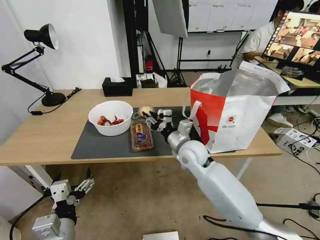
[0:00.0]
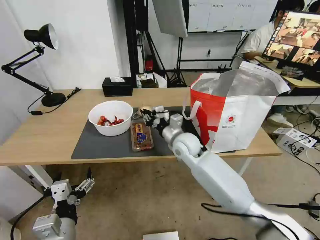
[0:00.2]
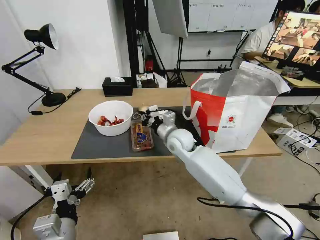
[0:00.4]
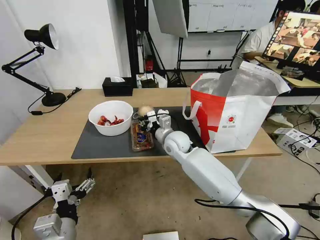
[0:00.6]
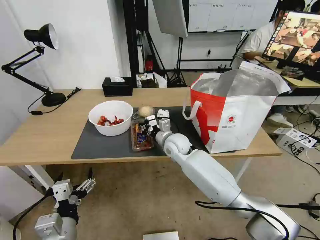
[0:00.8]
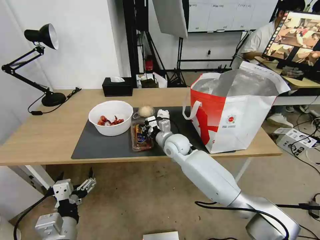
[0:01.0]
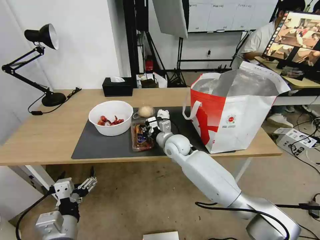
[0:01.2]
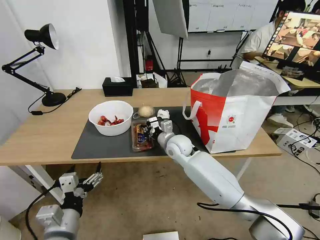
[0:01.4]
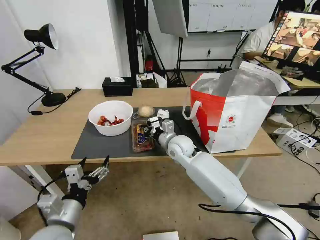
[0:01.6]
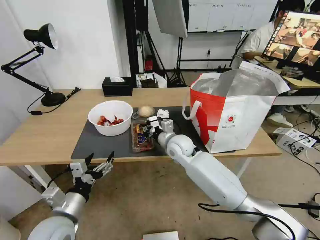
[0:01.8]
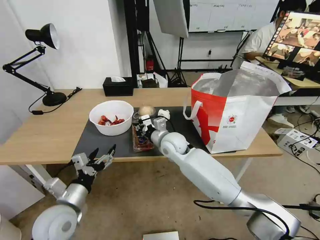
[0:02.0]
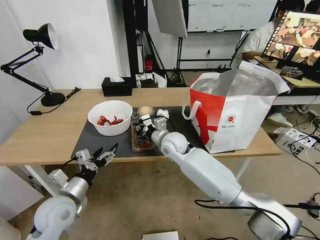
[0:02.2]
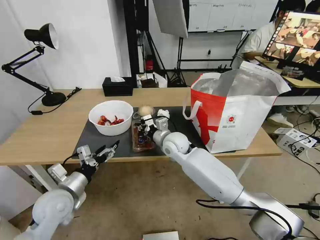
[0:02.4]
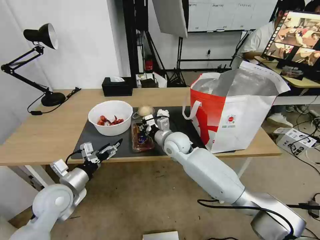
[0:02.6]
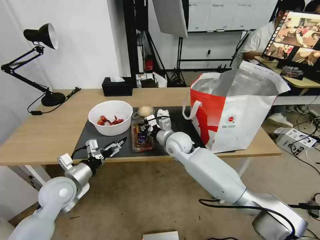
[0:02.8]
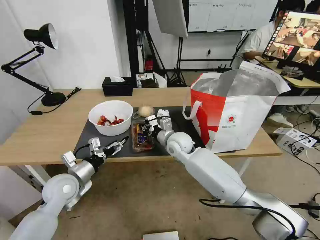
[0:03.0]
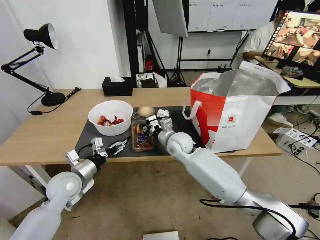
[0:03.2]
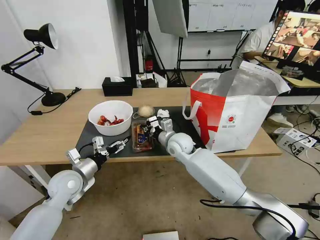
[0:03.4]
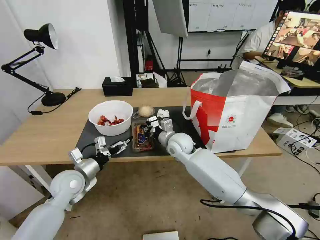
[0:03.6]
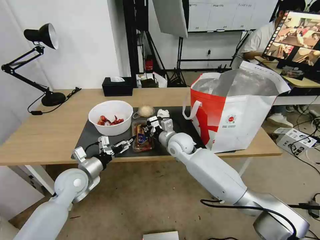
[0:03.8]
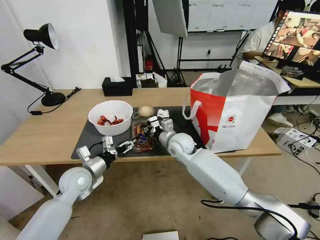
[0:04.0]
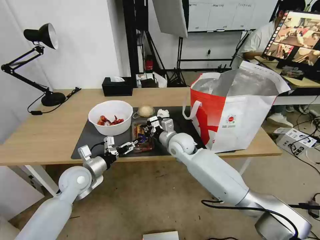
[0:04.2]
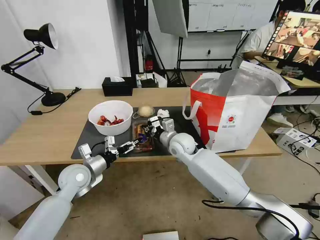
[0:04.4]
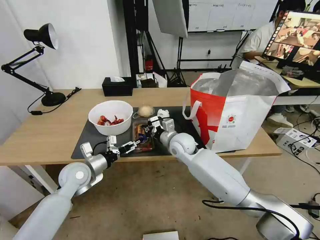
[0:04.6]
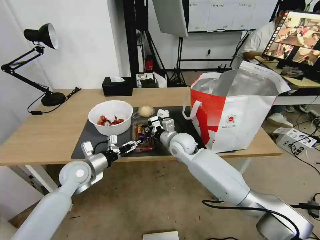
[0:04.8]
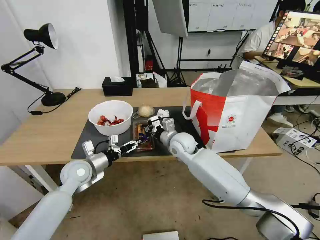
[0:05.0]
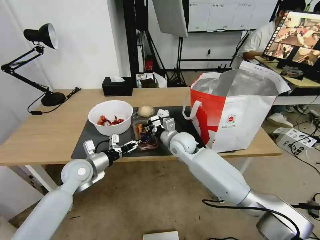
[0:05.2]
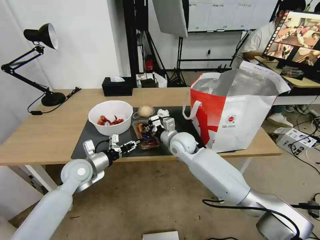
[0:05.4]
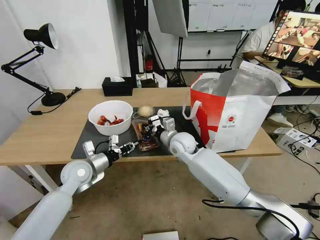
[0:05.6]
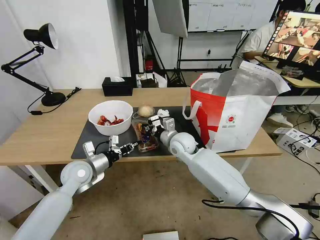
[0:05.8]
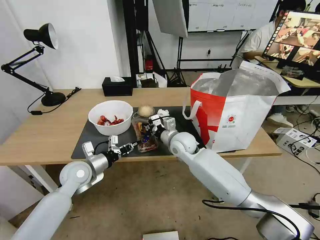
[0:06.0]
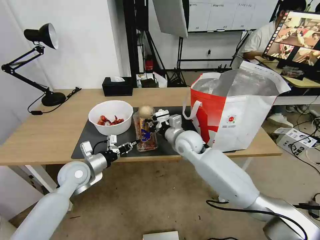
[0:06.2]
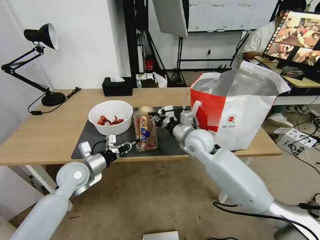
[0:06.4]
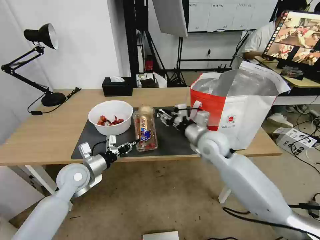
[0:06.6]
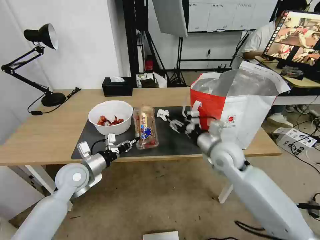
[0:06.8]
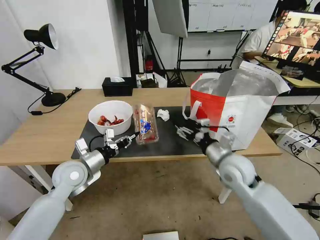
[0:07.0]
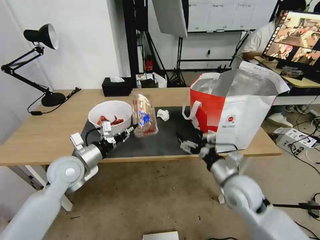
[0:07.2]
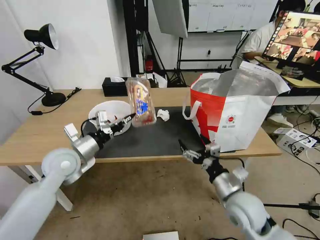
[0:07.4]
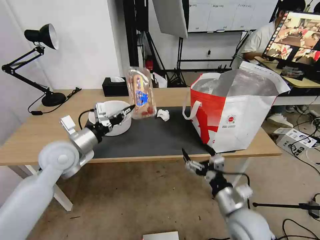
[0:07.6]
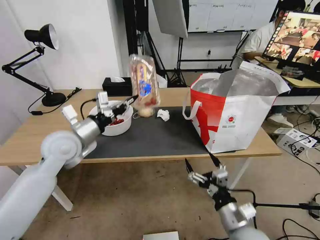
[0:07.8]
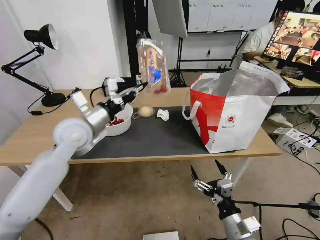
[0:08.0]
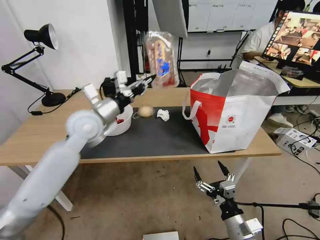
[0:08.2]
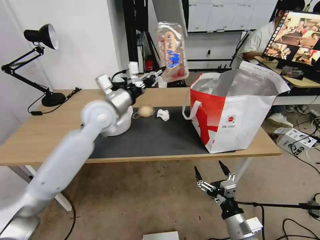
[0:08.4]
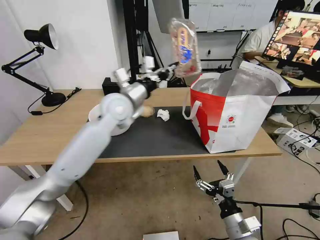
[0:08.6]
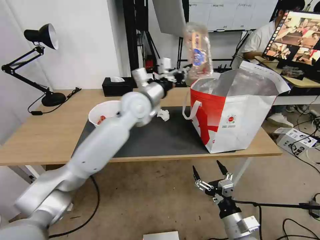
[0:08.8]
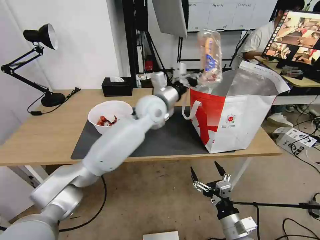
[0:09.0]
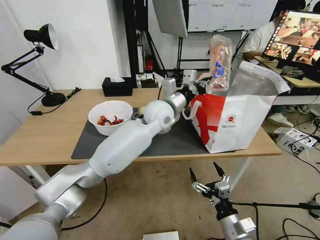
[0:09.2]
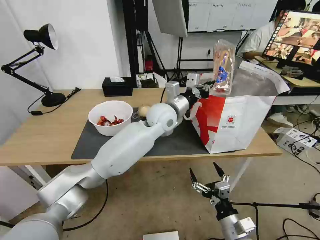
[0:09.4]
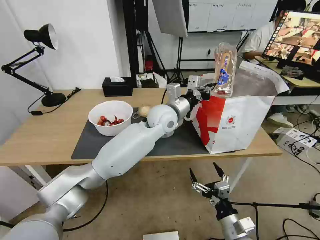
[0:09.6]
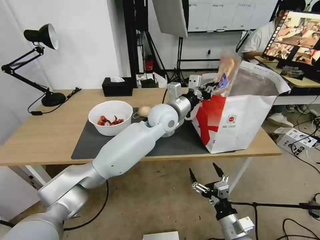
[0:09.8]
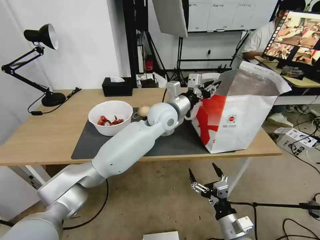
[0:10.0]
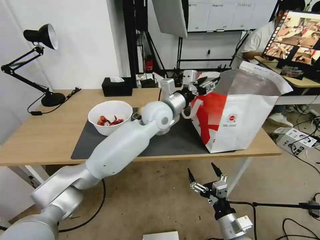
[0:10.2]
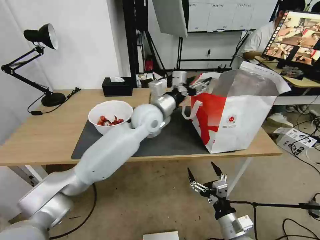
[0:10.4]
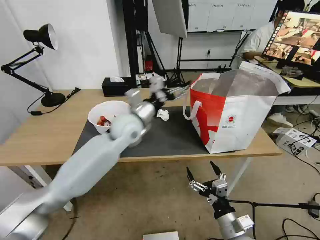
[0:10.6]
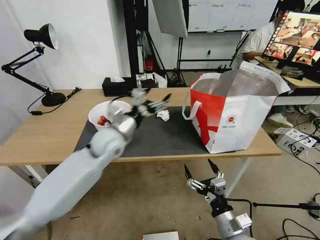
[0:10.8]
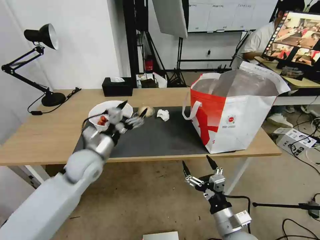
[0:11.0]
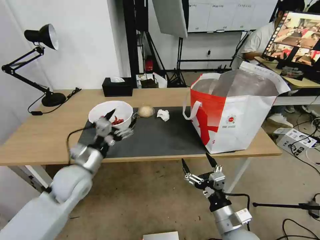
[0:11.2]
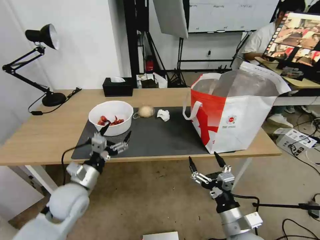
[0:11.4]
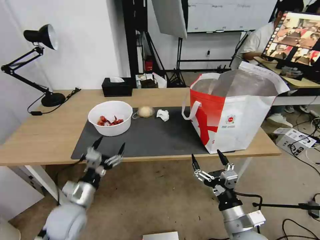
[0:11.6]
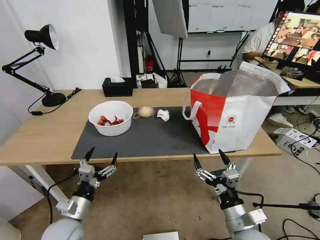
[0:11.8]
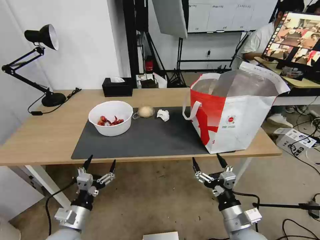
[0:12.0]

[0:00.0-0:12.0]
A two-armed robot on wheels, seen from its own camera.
Task of the whole recording: Pick up the trash from the table and place it into the takeout bag.
0:00.0 to 0:01.6: The left gripper moves about 5 cm. The right gripper travels forward by approximately 5 cm, and closes up.
0:01.6 to 0:03.0: The left gripper heads forward, covering about 15 cm.
0:03.0 to 0:04.4: The grippers move only a little.
0:04.4 to 0:06.0: The left gripper closes its fingers.
0:06.0 to 0:07.6: The right gripper shifts roughly 30 cm backward and to the right, and opens. Meanwhile the left gripper is displaced upward by about 10 cm.
0:07.6 to 0:09.0: The left gripper heads to the right and forward, covering some 30 cm, while the right gripper travels downward by about 5 cm.
0:09.0 to 0:10.4: The left gripper opens its fingers.
0:10.4 to 0:12.0: The left gripper is displaced backward, downward and to the left by some 40 cm.

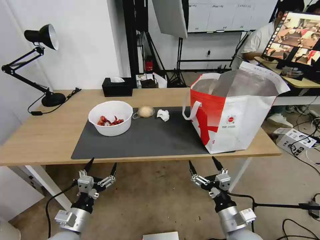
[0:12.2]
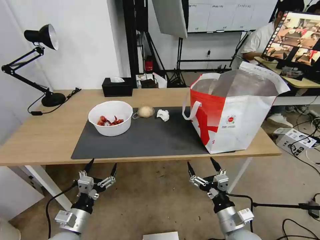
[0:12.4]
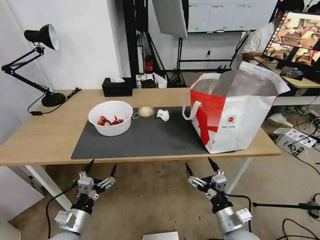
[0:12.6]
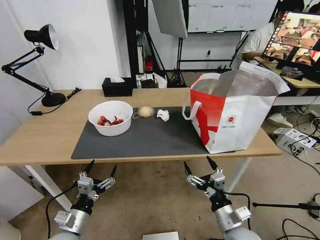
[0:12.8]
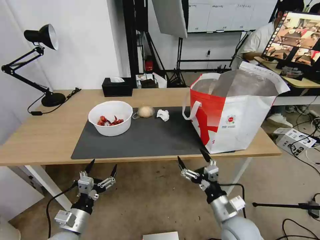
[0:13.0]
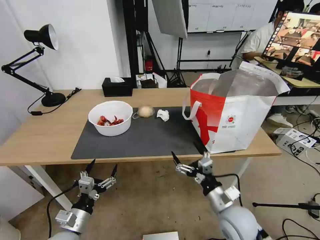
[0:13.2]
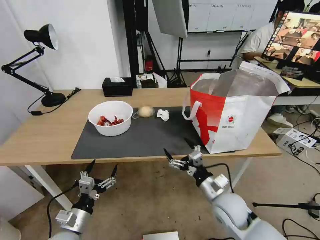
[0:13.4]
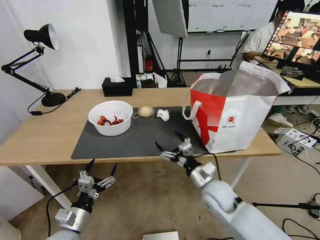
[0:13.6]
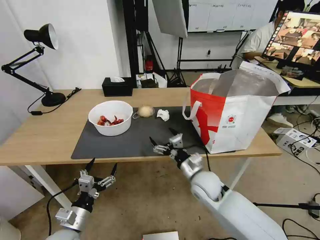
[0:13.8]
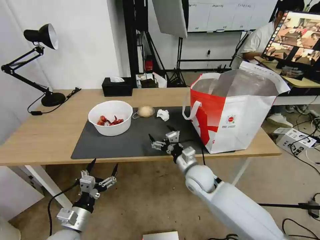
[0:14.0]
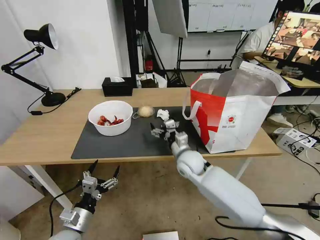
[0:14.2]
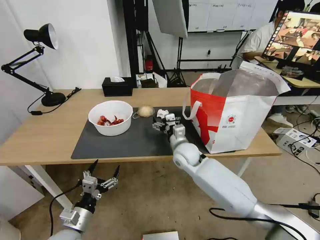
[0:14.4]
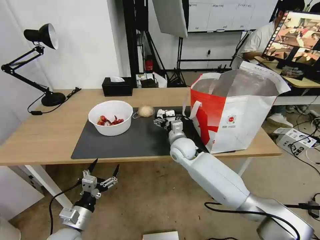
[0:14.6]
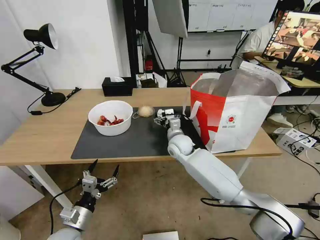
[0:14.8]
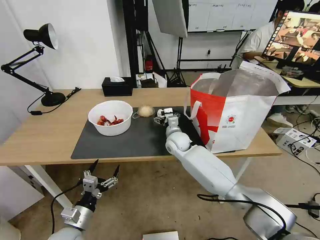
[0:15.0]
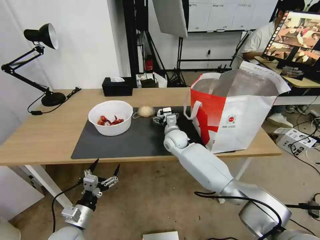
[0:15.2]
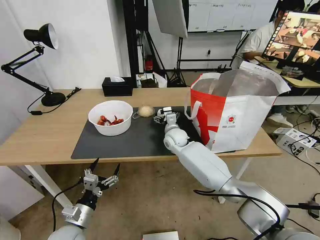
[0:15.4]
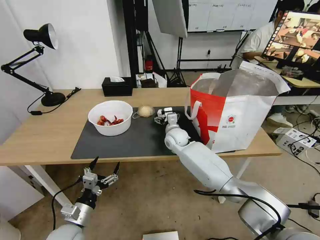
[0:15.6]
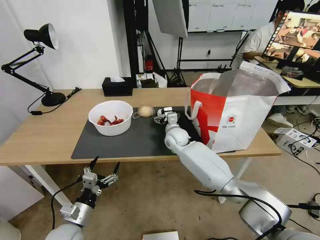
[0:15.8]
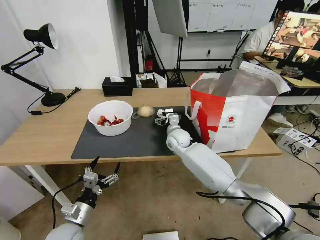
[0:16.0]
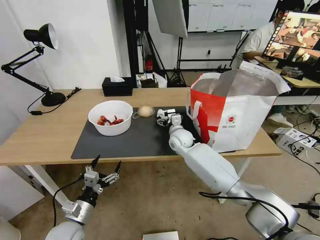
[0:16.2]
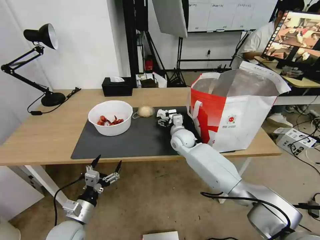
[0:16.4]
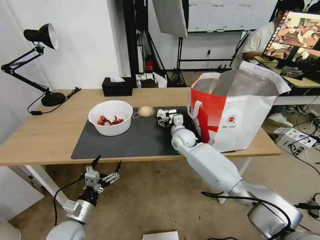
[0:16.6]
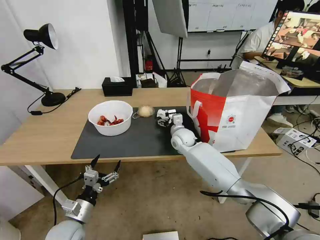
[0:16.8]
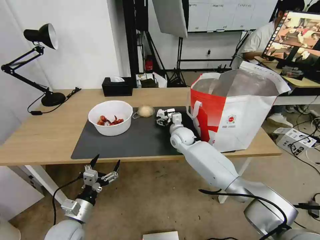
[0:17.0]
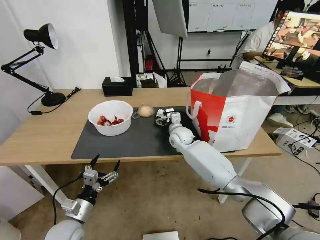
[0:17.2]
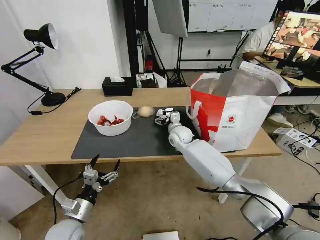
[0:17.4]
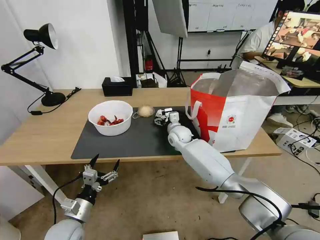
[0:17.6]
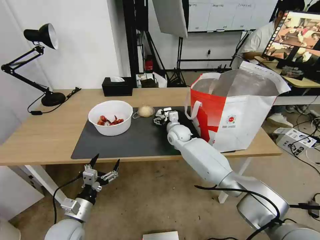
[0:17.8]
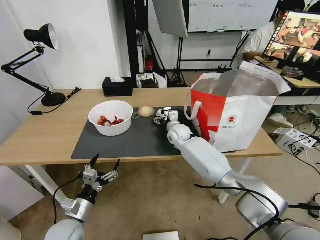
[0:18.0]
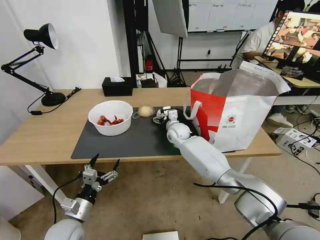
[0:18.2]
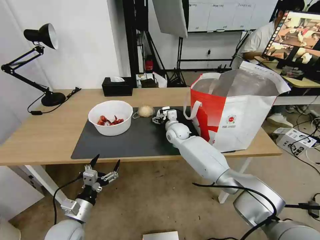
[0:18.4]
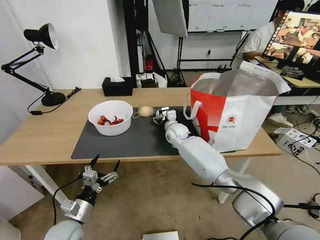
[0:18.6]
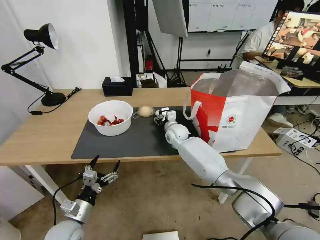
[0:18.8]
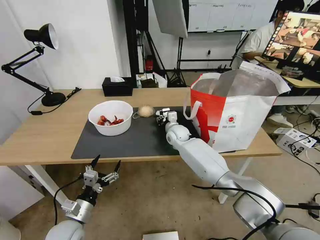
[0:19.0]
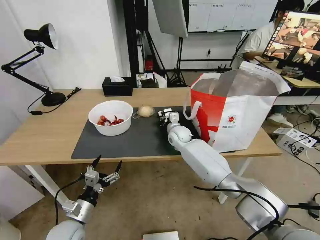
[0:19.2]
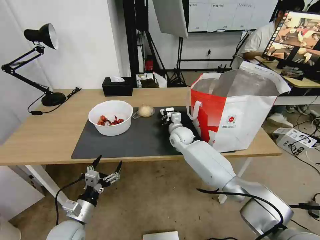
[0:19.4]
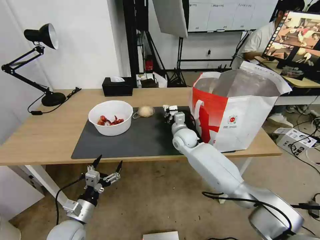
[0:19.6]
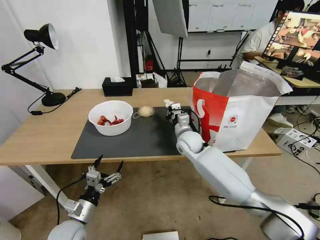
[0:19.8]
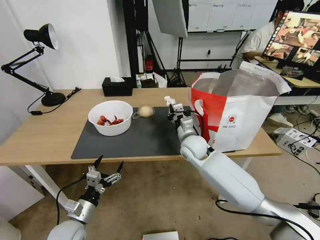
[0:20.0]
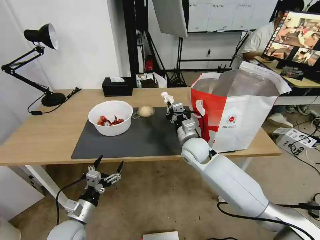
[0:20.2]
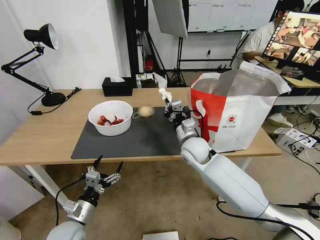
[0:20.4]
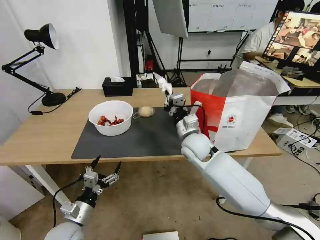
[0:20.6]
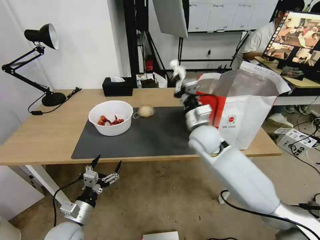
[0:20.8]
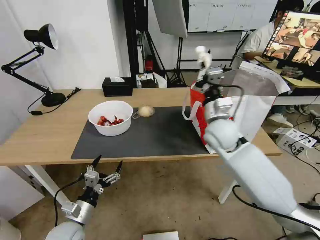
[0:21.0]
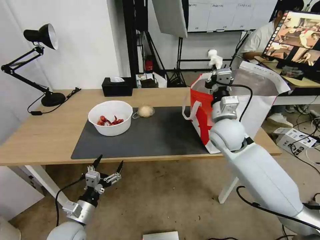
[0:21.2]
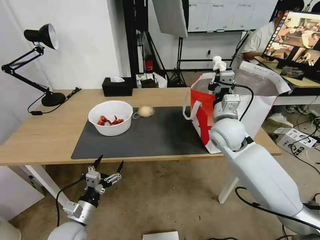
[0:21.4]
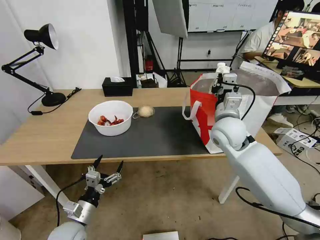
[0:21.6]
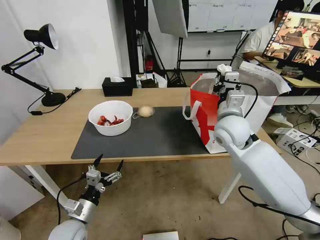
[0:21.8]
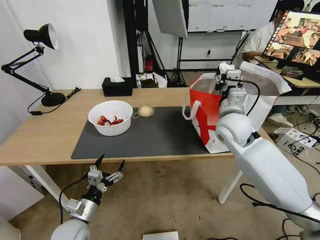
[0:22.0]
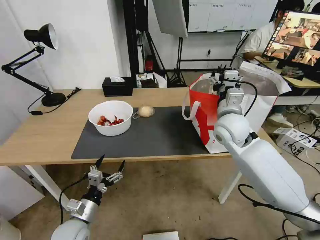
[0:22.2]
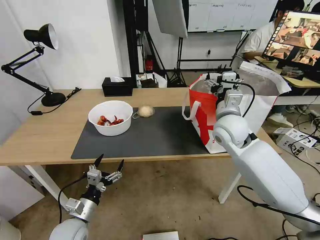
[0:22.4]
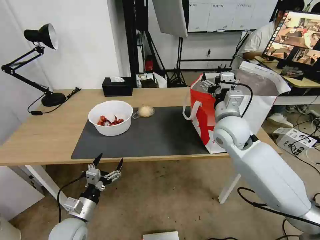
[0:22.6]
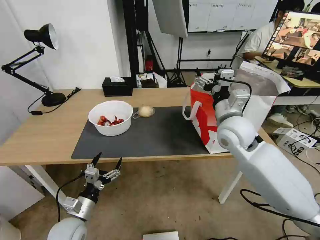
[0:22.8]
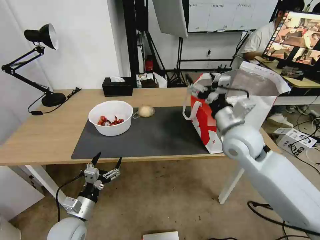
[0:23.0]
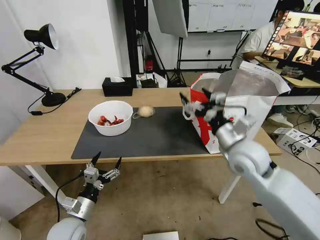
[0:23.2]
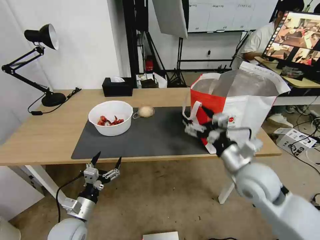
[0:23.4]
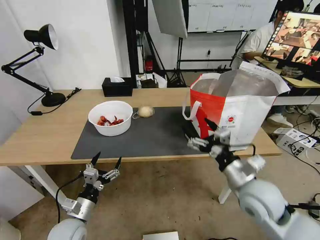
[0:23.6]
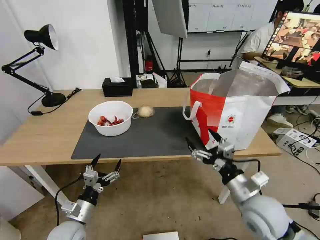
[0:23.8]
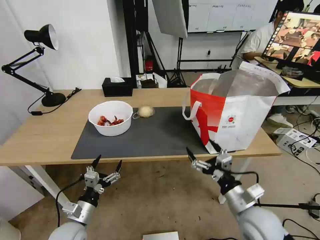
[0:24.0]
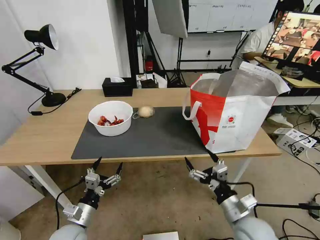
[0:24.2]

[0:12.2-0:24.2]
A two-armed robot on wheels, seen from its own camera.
Task of the whole recording: Pick up the trash from the table and place it into the takeout bag.
0:12.2 to 0:13.8: The right gripper heads forward and to the left, covering approximately 20 cm.
0:13.8 to 0:15.2: The right gripper shifts approximately 20 cm forward and to the left.
0:15.2 to 0:18.2: There are only small adjustments of the grippers.
0:18.2 to 0:19.8: The right gripper goes roughly 5 cm backward, and closes its fingers.
0:19.8 to 0:21.2: The right gripper goes about 15 cm upward, to the right and backward.
0:21.2 to 0:22.6: The right gripper opens.
0:22.6 to 0:24.2: The right gripper shifts approximately 30 cm backward and downward.
